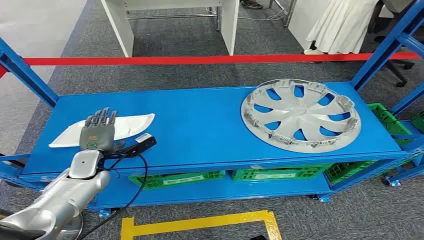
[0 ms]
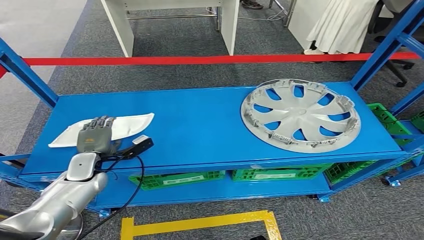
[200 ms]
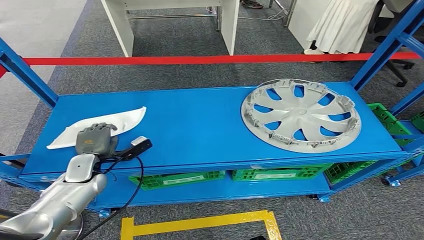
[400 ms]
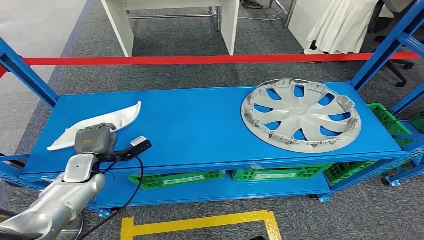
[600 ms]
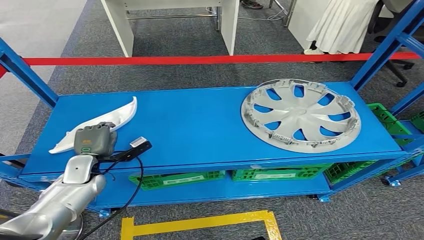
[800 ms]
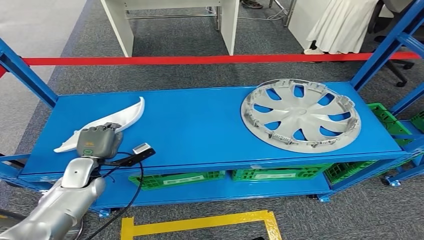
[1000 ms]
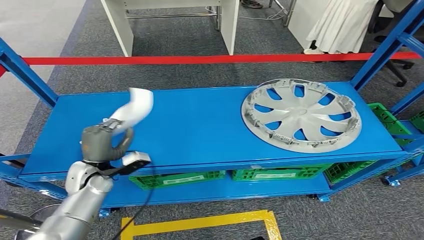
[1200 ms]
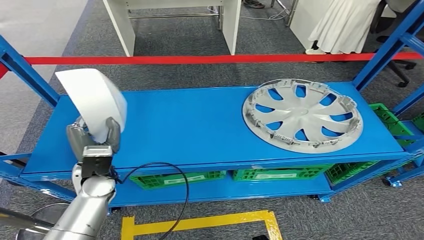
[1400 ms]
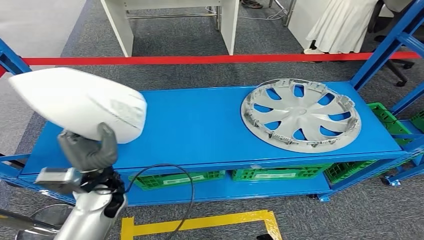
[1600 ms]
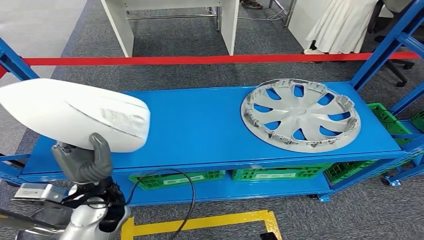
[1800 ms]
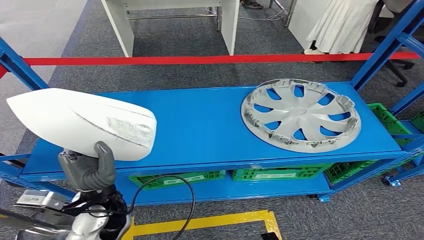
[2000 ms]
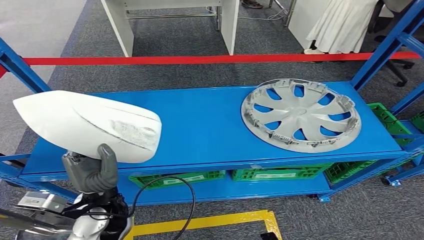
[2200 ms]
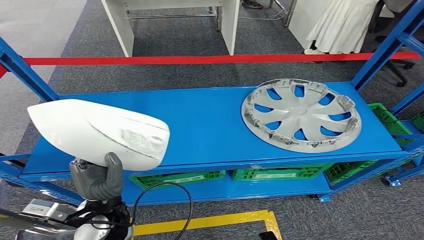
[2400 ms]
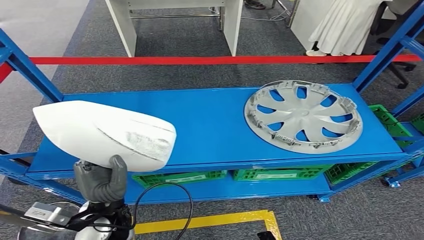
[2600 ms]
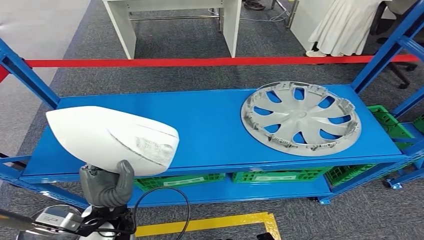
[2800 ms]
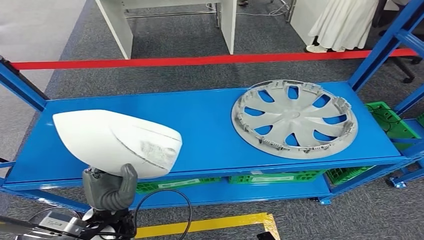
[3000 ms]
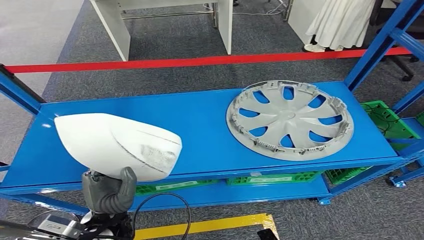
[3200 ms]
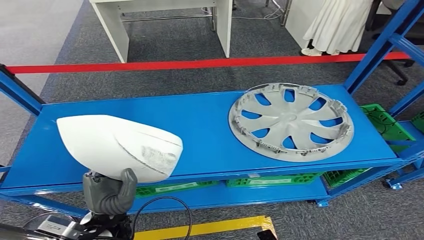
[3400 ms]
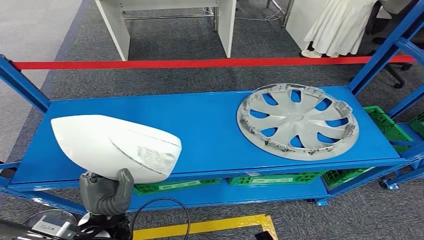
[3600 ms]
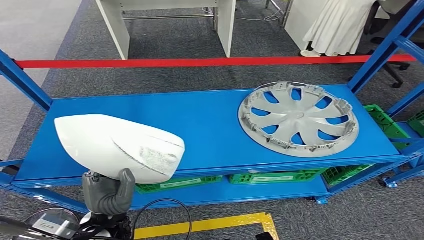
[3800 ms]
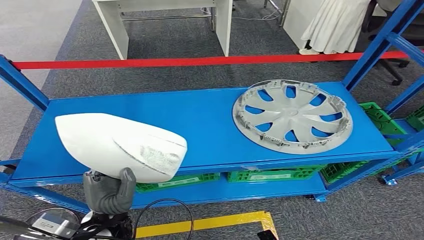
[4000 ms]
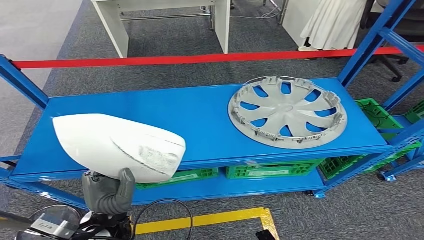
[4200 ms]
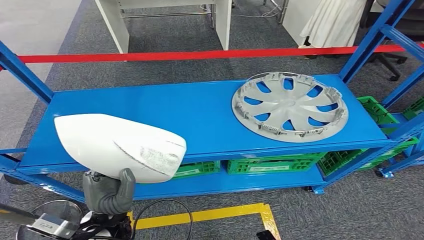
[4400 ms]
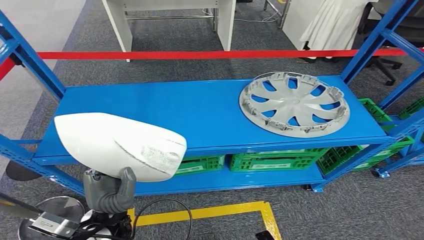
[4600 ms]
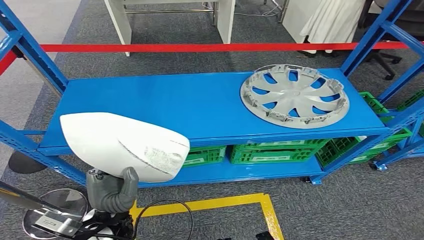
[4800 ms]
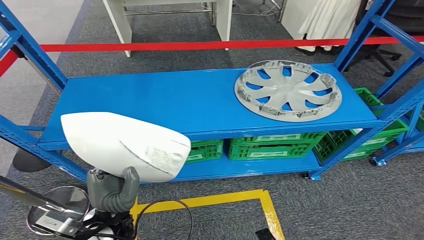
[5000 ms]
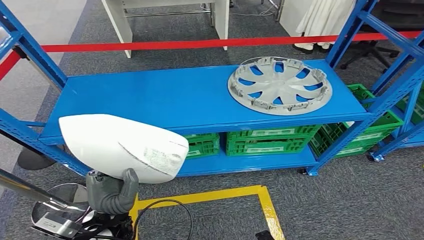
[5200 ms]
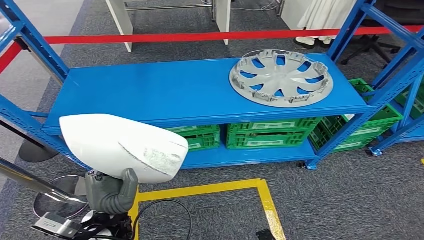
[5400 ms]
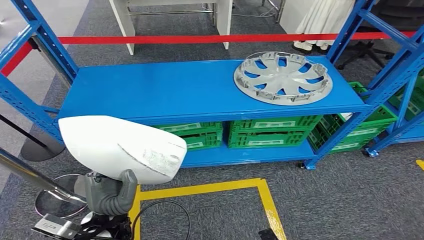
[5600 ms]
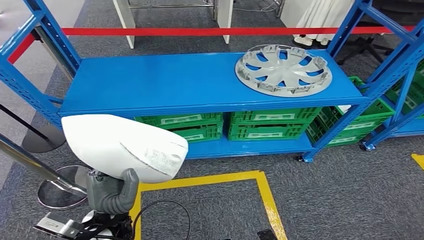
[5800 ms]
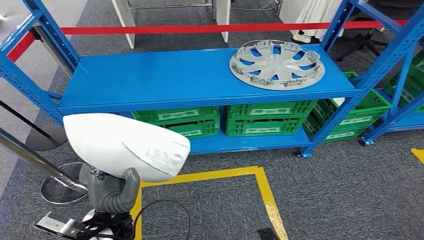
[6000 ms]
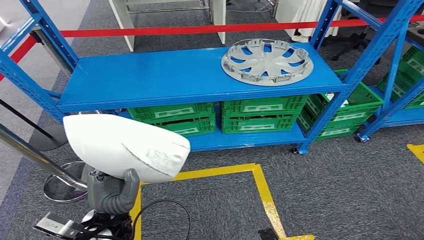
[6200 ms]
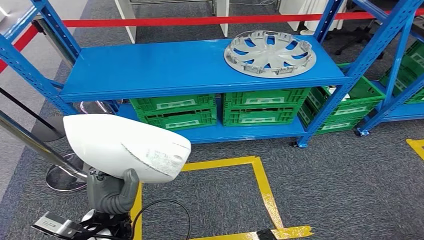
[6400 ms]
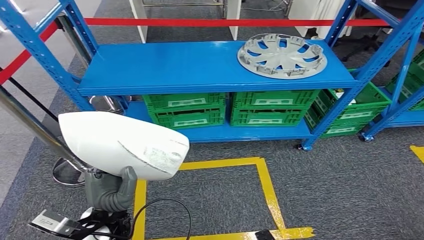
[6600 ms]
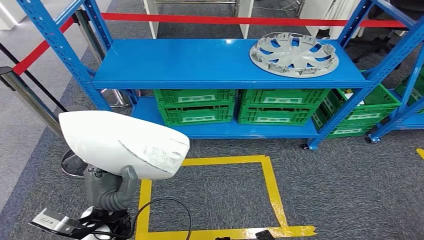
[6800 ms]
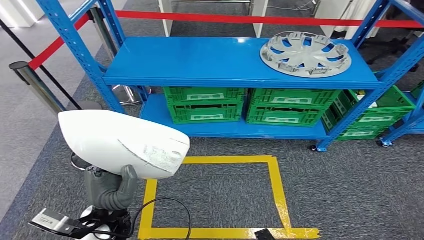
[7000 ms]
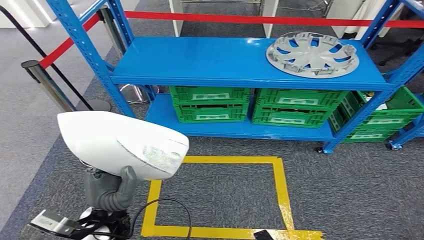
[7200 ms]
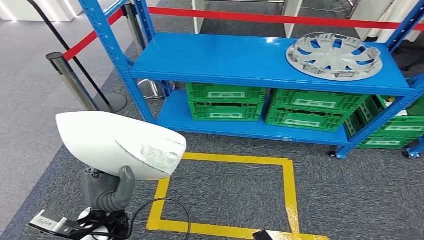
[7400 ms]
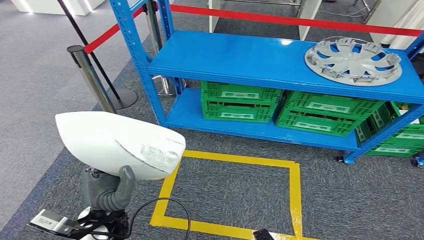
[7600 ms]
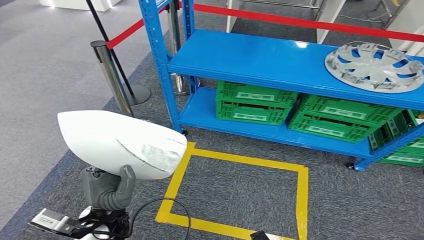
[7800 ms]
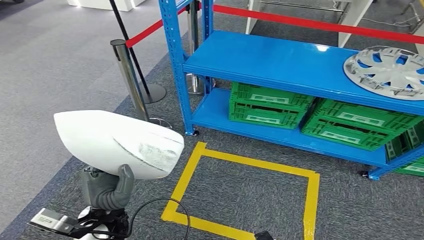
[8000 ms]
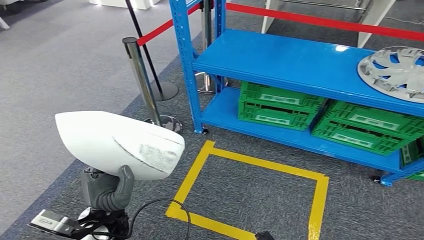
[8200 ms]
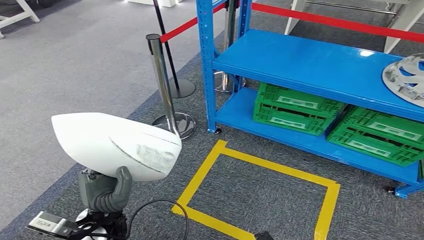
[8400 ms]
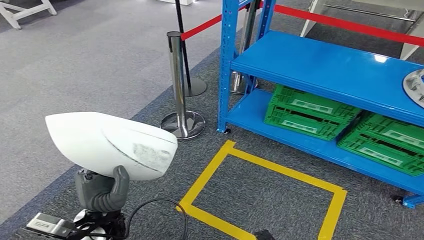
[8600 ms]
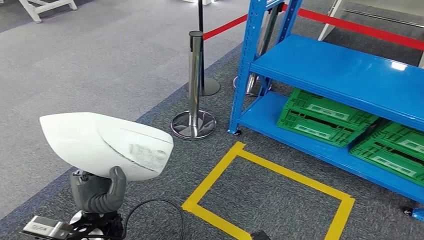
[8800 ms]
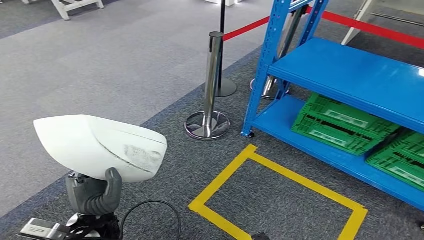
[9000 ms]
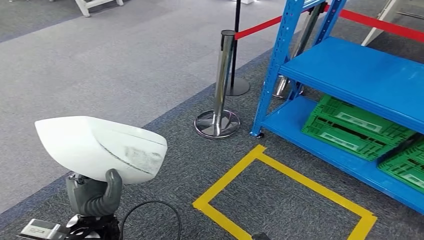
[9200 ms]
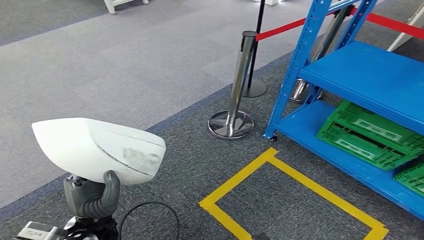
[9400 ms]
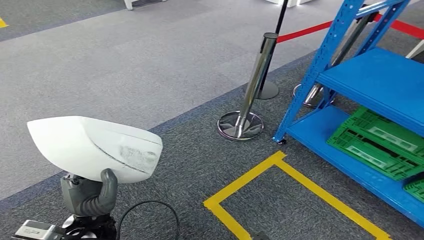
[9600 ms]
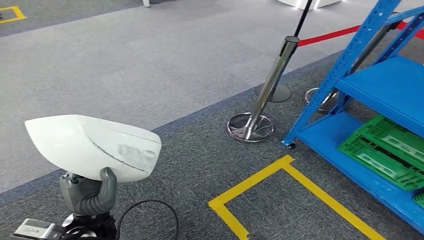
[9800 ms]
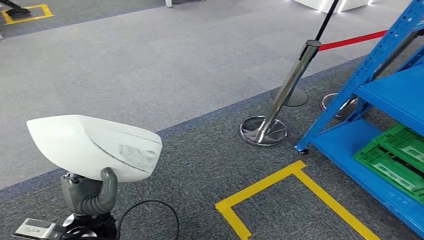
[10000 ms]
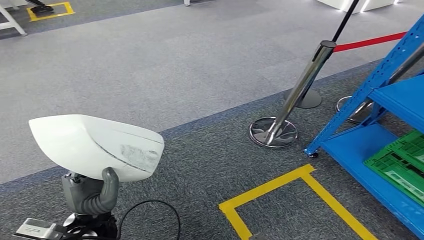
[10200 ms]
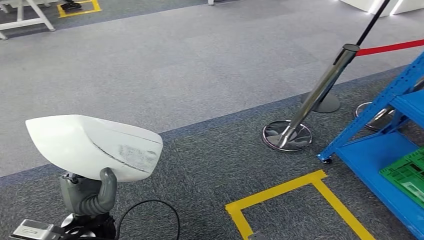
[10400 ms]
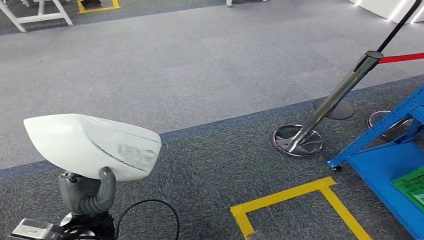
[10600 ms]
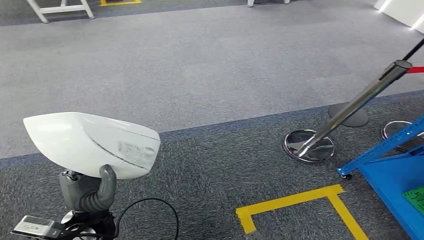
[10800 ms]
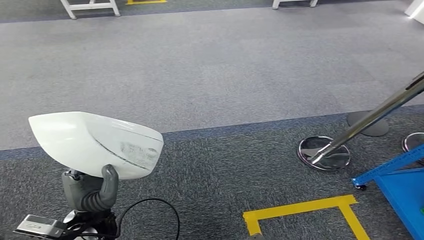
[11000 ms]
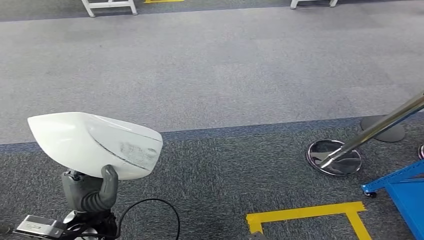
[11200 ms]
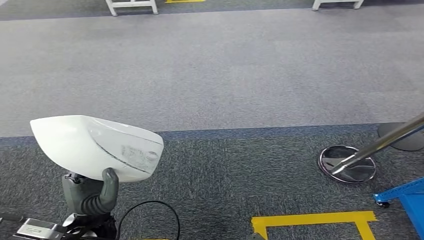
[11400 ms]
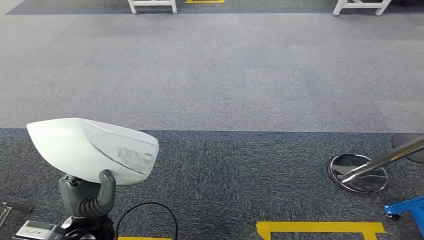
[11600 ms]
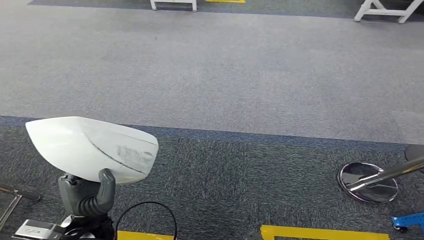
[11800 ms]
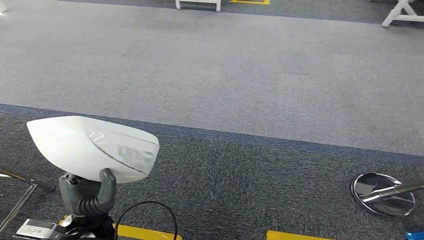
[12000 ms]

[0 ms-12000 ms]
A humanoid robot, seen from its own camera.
Step, 0 ms to 2600 ms: Take small components from the rack.

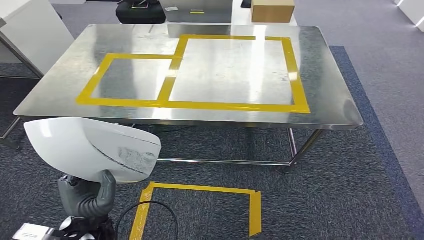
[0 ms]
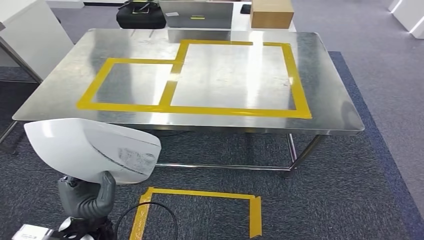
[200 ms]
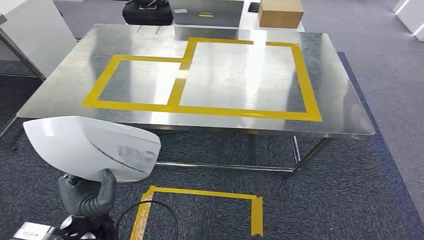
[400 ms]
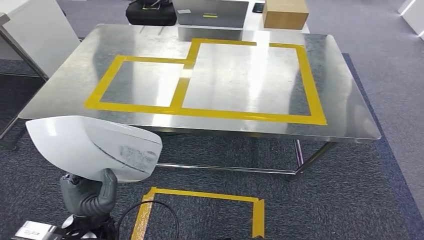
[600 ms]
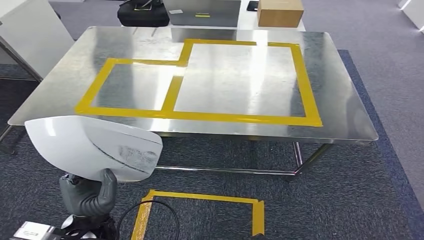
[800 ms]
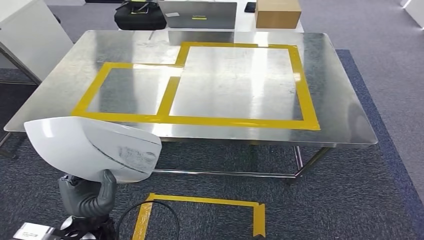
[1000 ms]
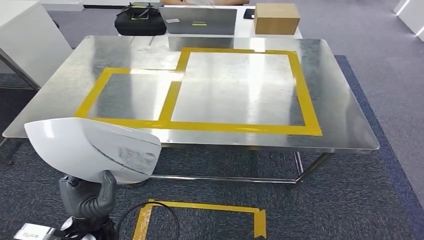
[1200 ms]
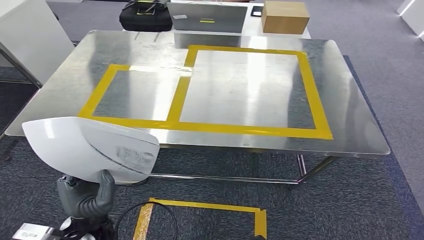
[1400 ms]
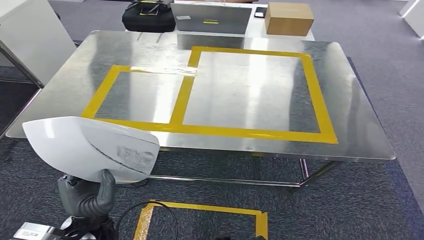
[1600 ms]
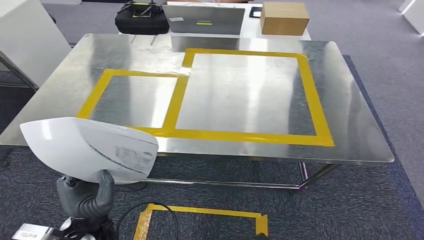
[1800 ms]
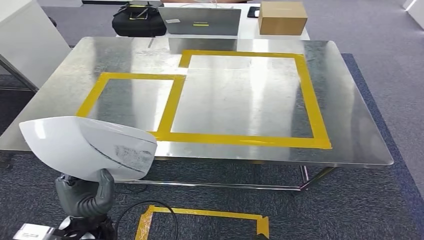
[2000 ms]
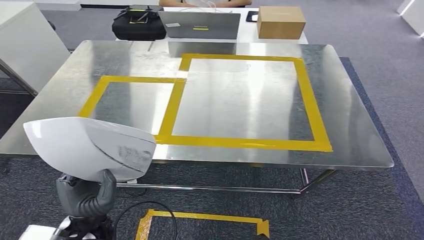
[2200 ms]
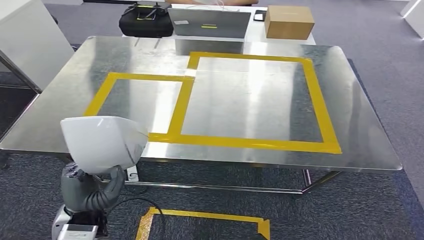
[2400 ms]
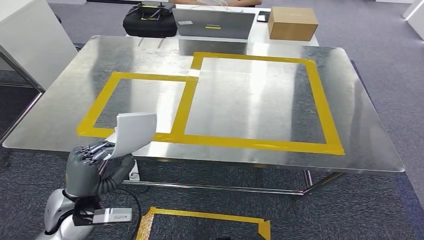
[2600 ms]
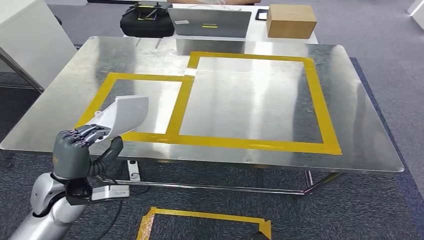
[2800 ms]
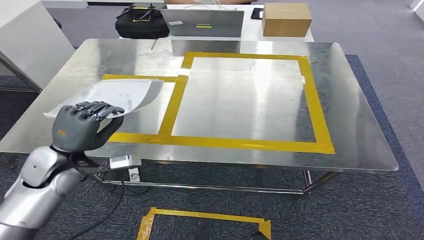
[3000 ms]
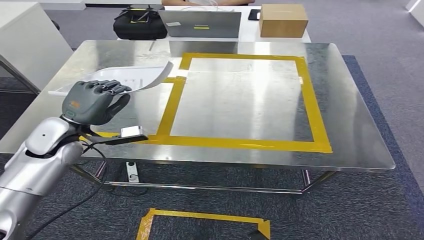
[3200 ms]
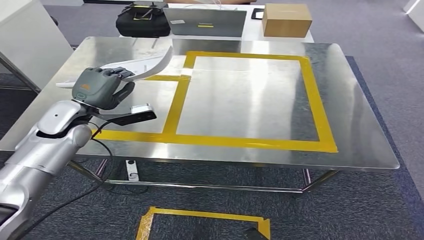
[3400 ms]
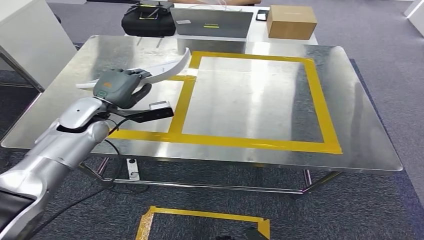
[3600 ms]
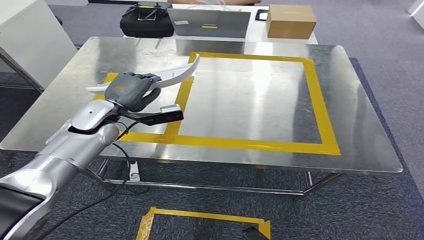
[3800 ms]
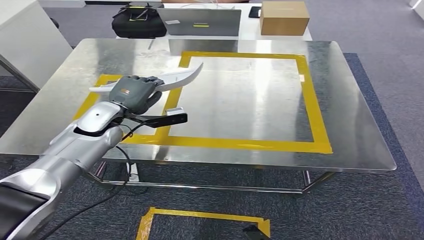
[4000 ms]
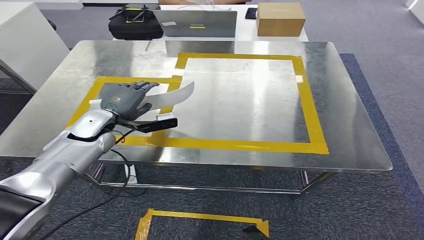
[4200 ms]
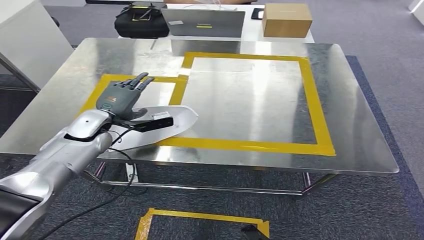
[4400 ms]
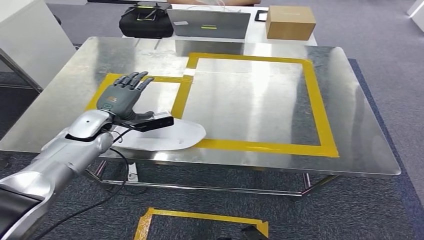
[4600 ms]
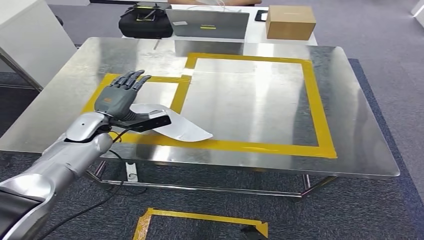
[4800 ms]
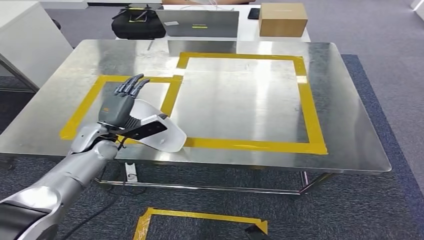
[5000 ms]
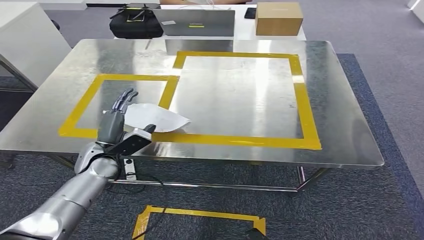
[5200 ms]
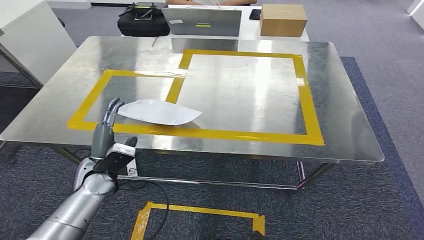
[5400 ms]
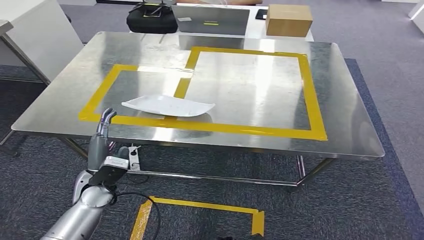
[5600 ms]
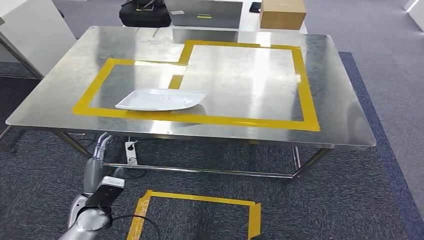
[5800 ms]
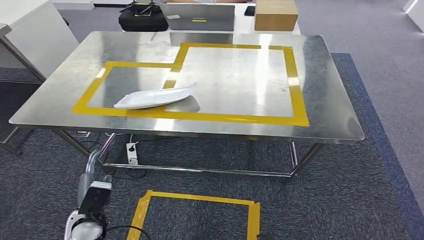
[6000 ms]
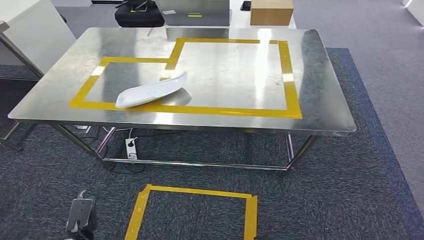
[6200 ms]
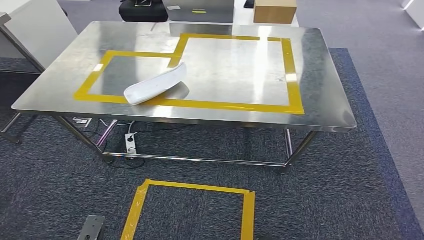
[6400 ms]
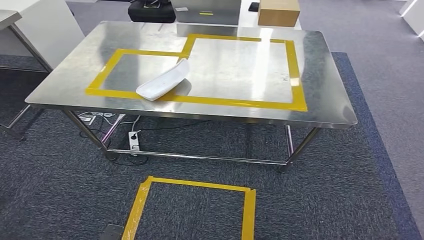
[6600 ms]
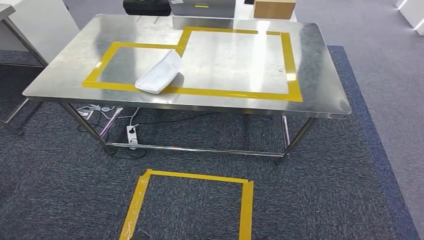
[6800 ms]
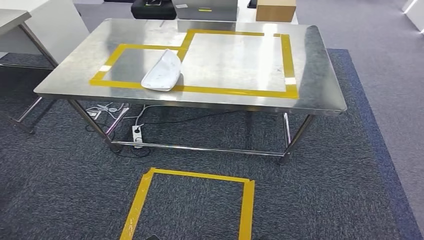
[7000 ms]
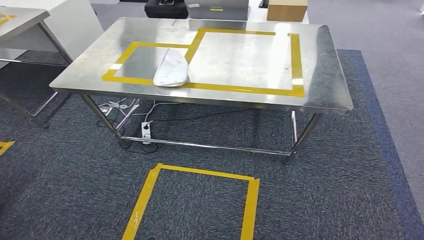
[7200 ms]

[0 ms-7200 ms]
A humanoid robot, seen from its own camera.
Step, 1600 ms to 5800 ms: Insert the small parts into the corresponding holes on the workbench.
